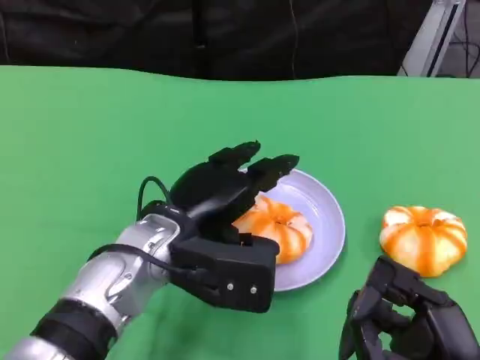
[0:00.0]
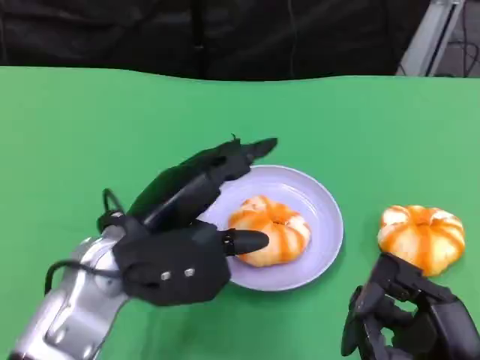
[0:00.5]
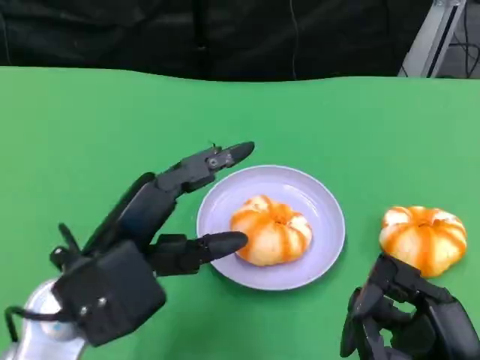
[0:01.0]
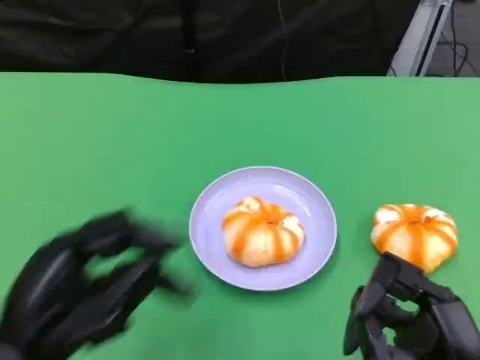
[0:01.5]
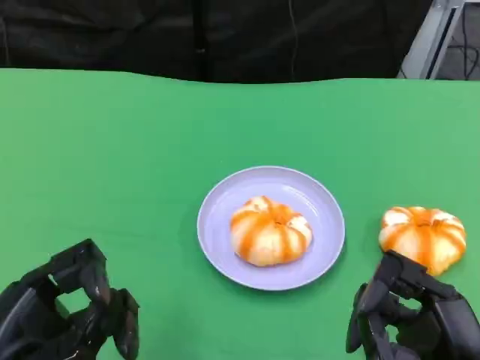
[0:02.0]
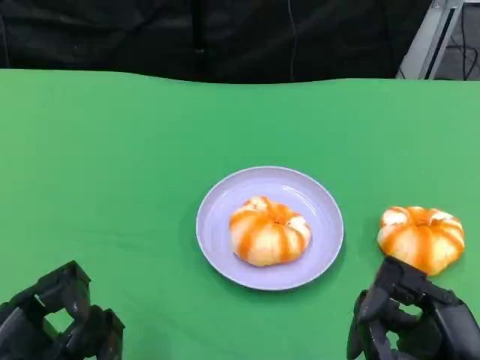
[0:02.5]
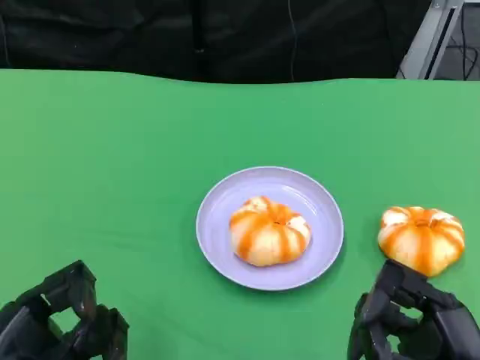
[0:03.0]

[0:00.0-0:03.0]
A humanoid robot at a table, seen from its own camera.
Task of the whole recording: Grasp the bread from the table and place it into the plate.
0:00.0 to 0:01.5: The left hand goes approximately 20 cm backward and to the left.
0:01.5 to 0:03.0: The hands move only a little.

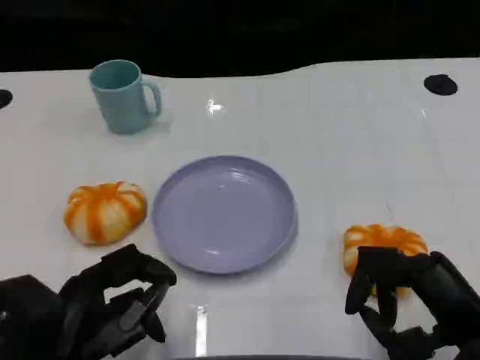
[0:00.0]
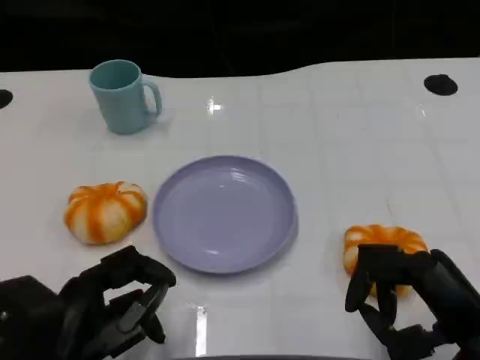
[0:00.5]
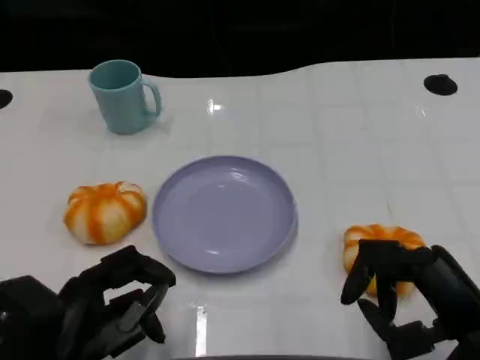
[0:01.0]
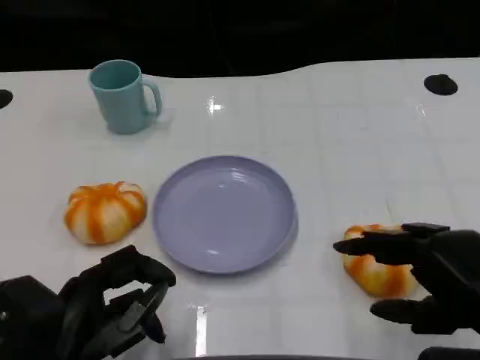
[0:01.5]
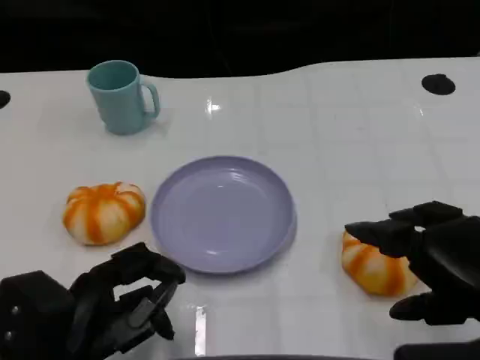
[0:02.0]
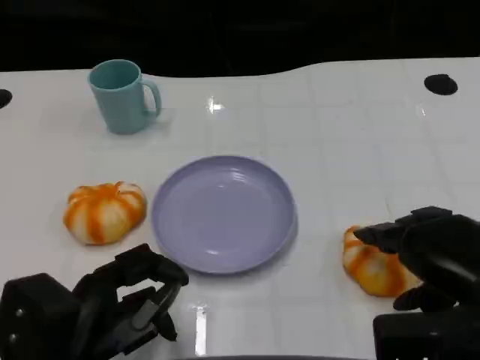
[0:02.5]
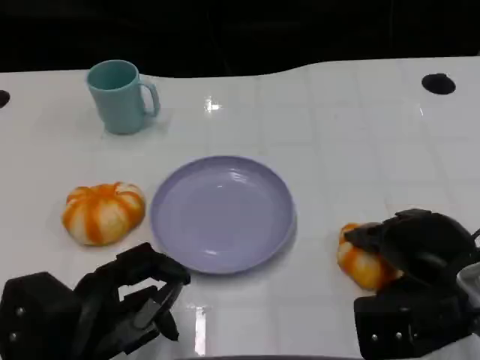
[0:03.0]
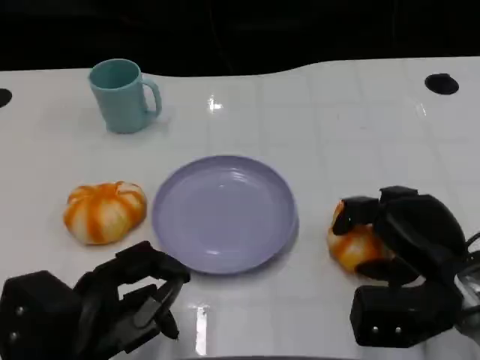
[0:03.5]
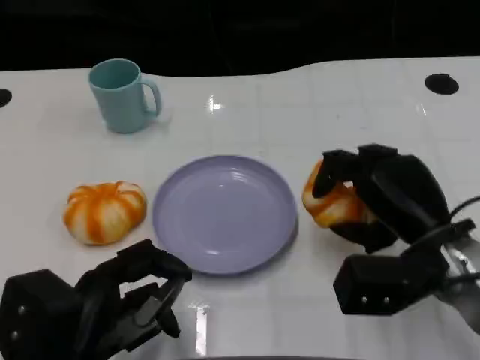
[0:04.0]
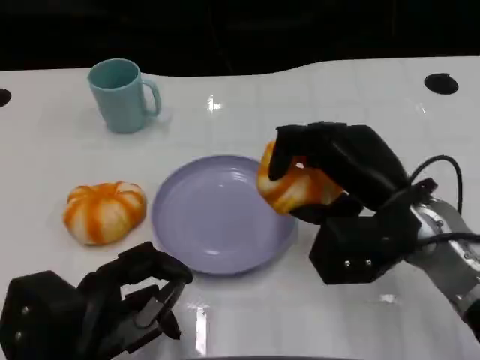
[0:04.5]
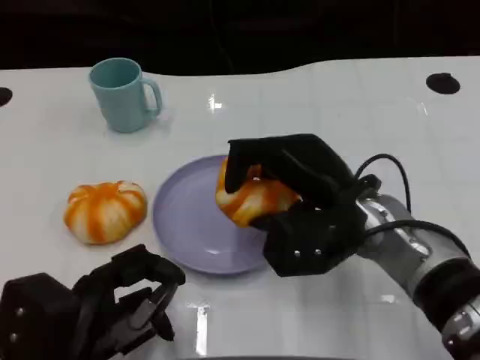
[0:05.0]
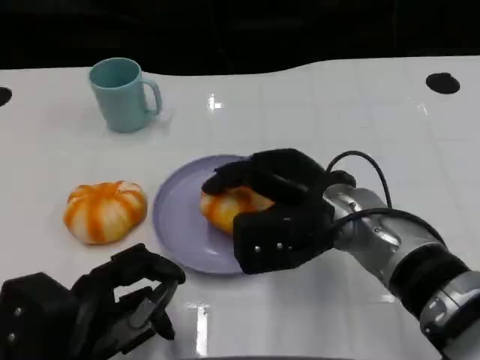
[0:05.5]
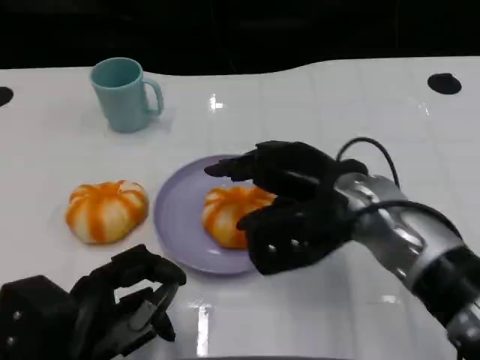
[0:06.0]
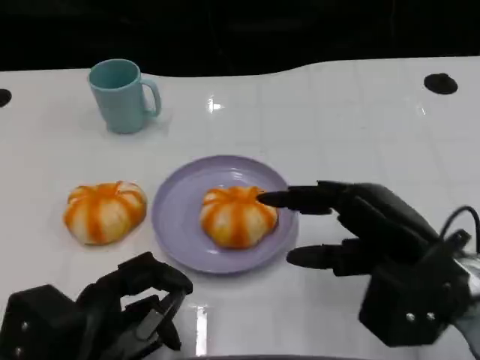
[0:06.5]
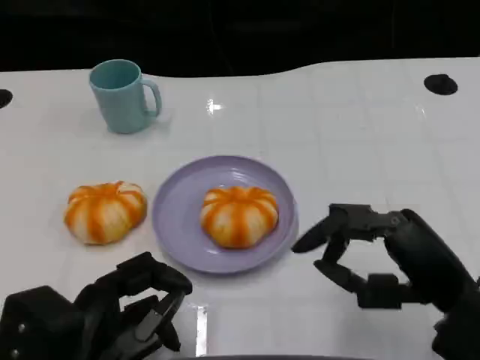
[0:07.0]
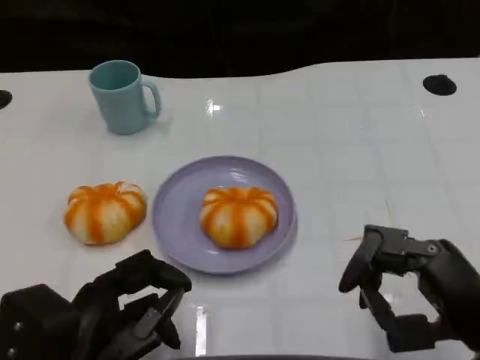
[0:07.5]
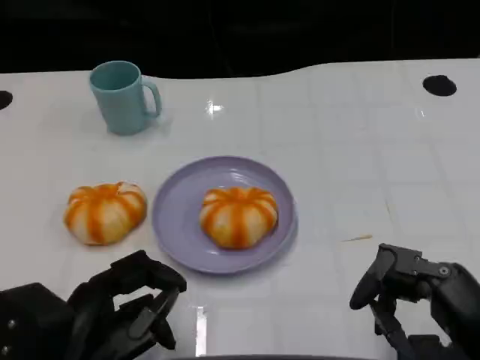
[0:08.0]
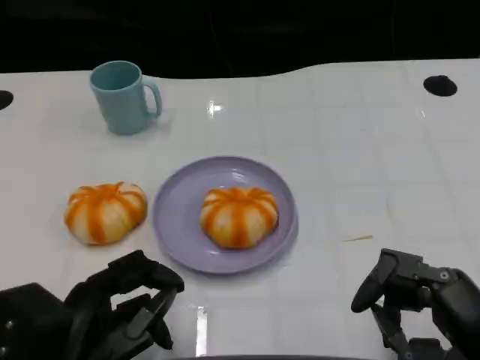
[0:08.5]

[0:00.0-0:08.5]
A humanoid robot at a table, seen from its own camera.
Task of the whole recording: Grasp the bread from the table and place it into the plate.
0:00.0 to 0:02.0: The right hand moves upward, roughly 5 cm.
0:02.0 to 0:04.0: The right hand goes about 10 cm forward and downward.
0:04.0 to 0:06.5: The right hand travels to the left and back again, about 10 cm each way.
0:06.5 to 0:08.5: The right hand goes about 10 cm backward.

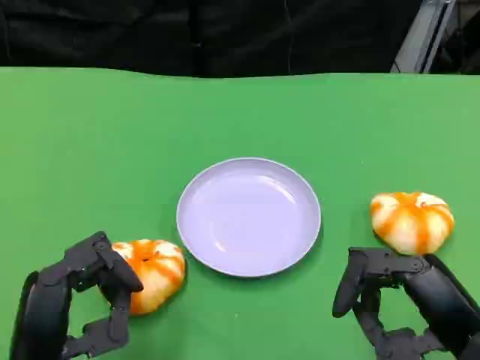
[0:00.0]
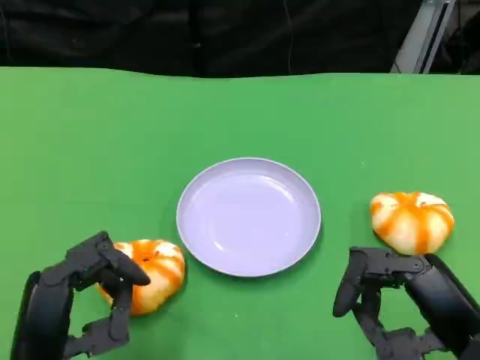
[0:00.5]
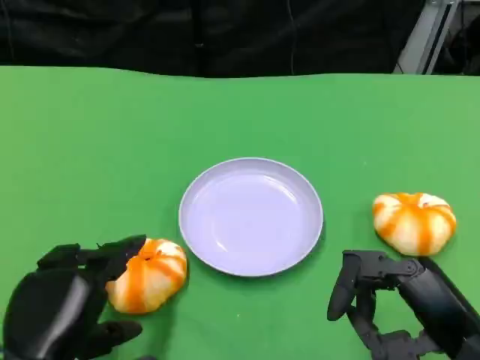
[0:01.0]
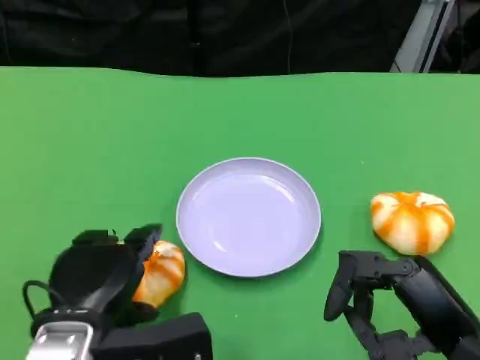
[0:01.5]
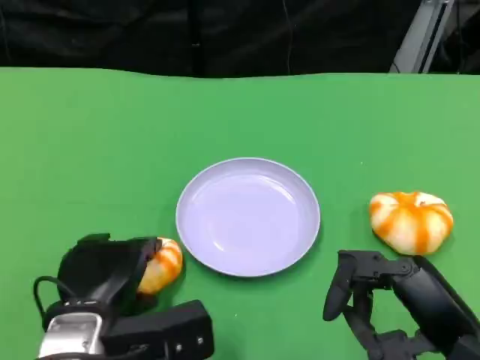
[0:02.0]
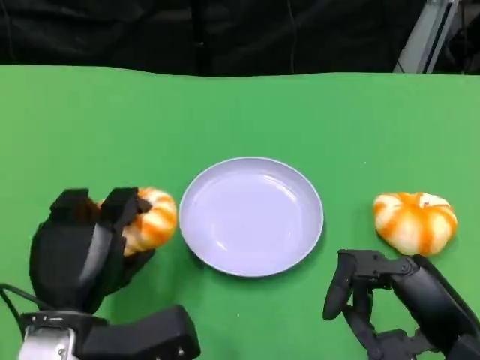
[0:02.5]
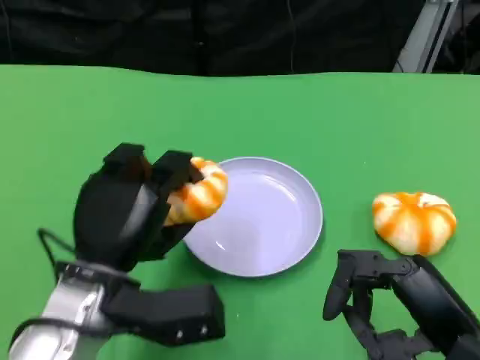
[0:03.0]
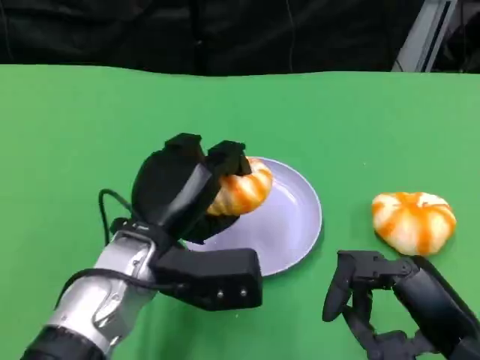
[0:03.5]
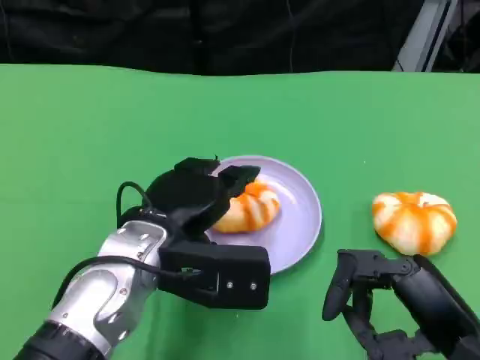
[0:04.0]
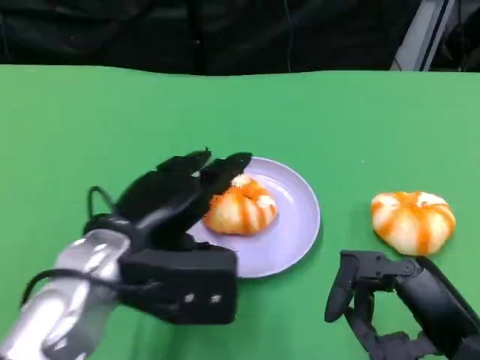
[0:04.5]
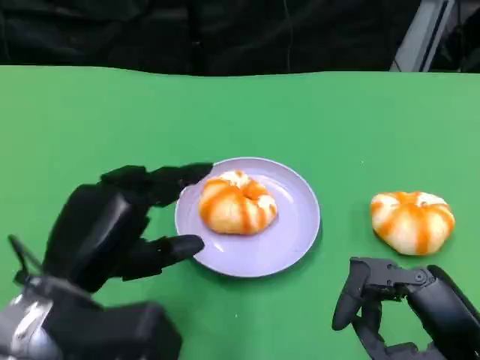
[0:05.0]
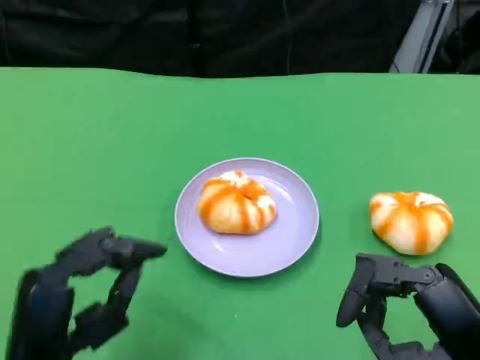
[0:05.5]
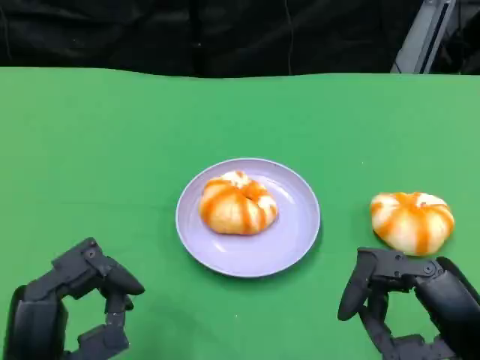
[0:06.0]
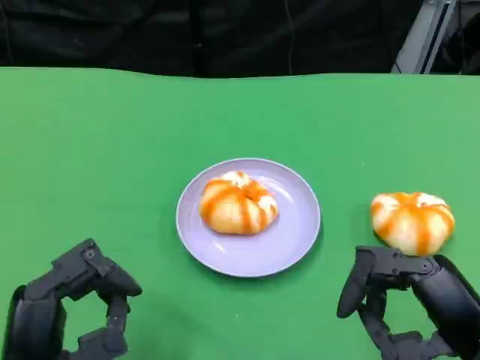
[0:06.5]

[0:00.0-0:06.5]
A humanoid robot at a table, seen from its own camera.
Task of the whole recording: Grasp the bread from the table and place it into the plate.
0:00.0 to 0:02.0: The left hand moves forward, roughly 5 cm.
0:02.0 to 0:04.5: The left hand goes some 10 cm upward.
0:04.5 to 0:06.5: The left hand goes some 15 cm backward, downward and to the left.

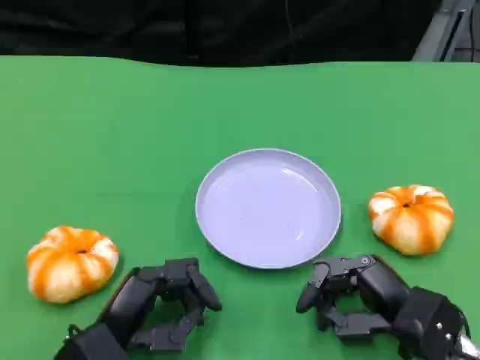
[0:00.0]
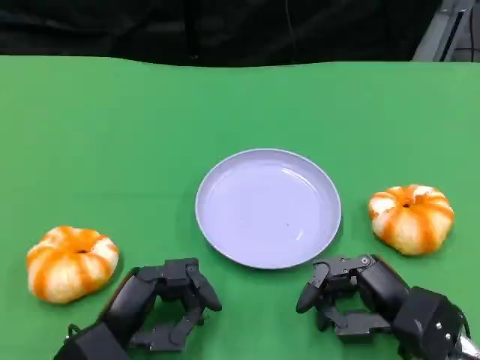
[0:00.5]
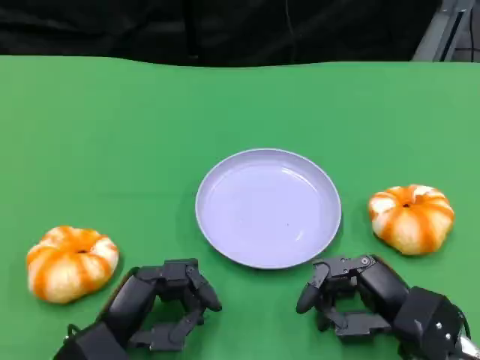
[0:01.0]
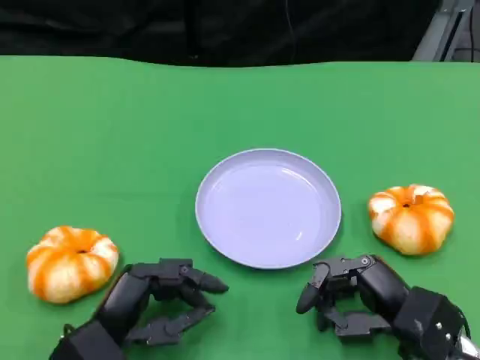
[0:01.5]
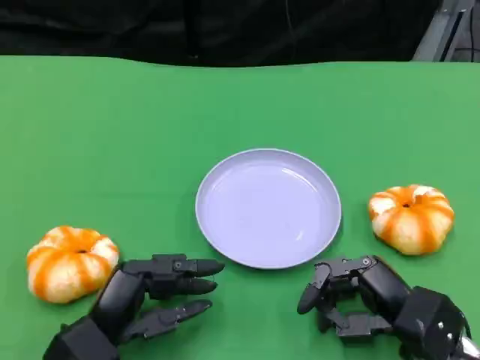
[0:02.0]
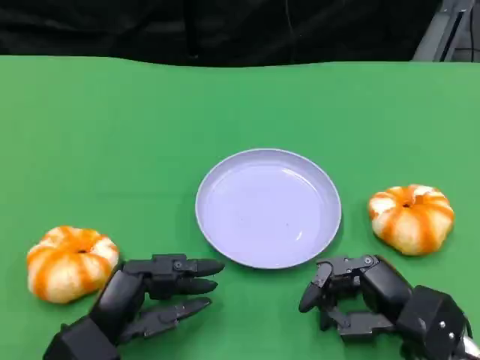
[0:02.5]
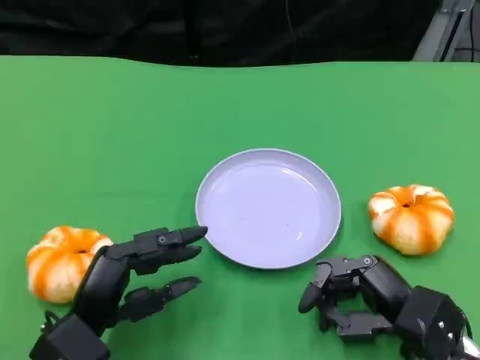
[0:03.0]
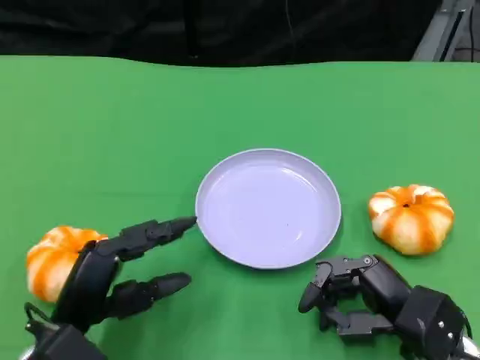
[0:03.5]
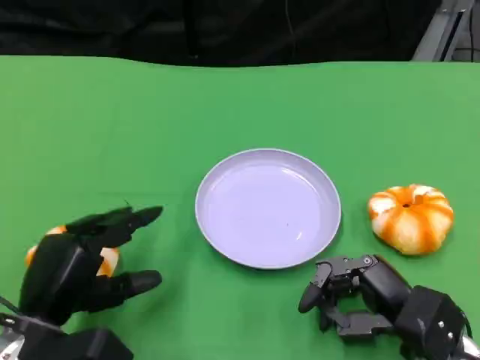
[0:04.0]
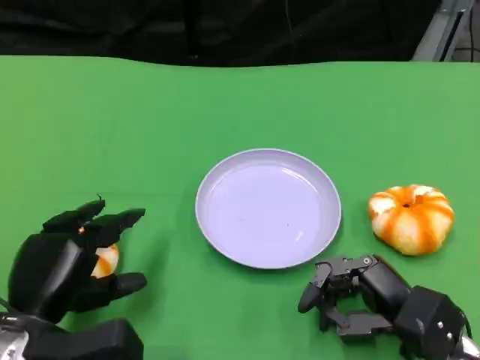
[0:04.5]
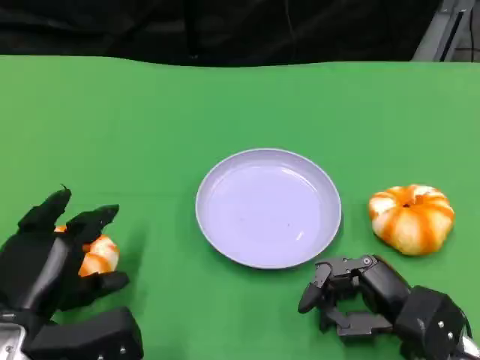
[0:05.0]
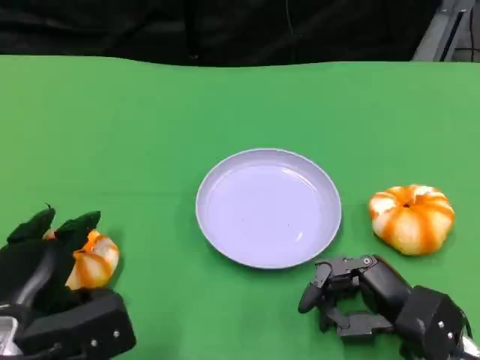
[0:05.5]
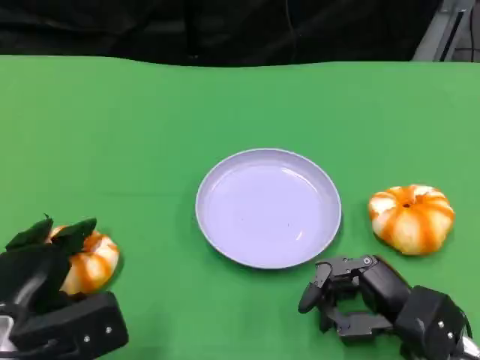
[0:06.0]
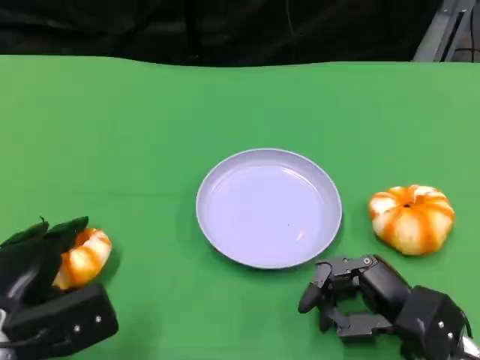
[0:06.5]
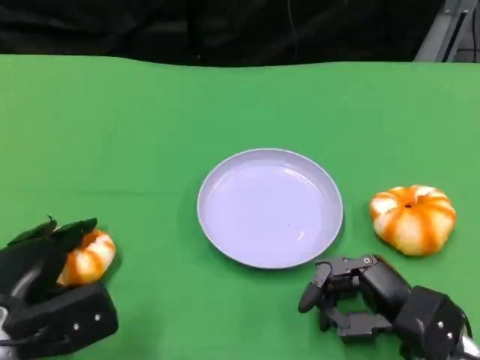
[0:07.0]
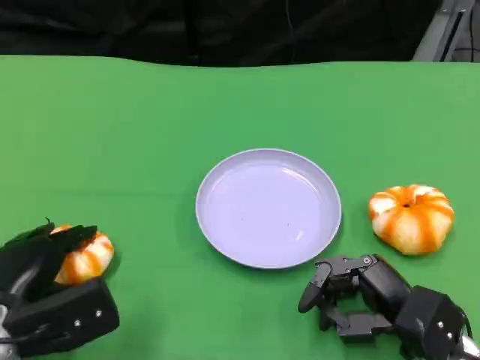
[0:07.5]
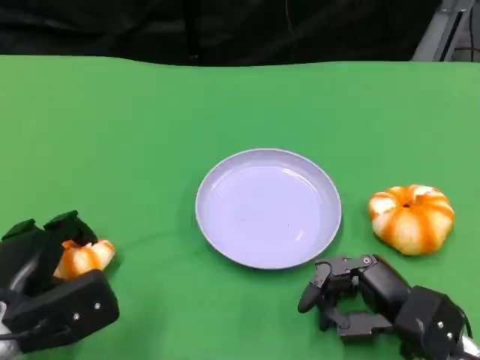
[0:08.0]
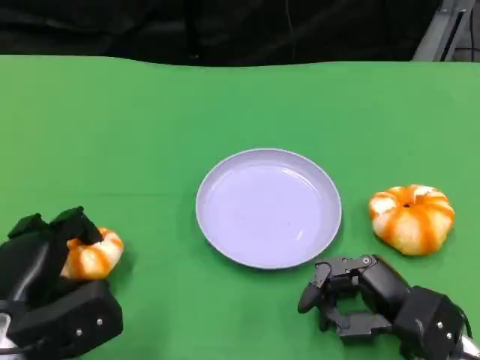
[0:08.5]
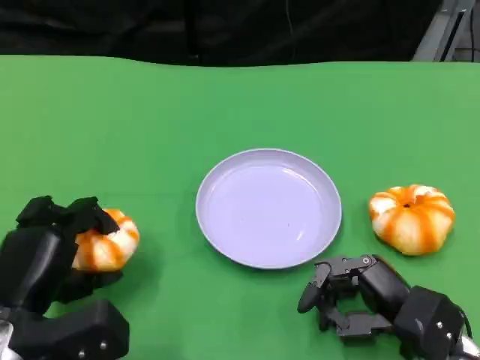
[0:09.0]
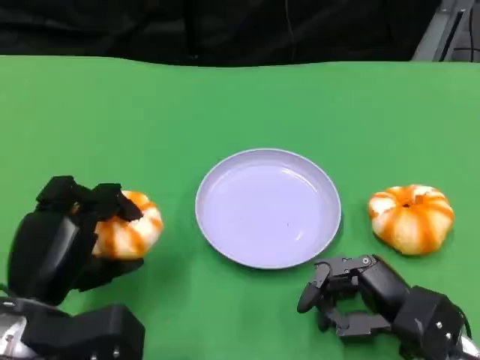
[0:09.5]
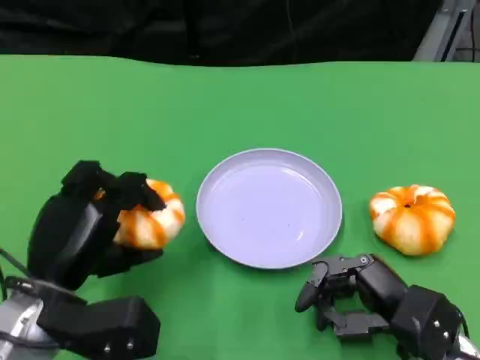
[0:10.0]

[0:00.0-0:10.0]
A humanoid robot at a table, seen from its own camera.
Task of the whole recording: Grasp the bread from the table and place it into the plate.
0:00.0 to 0:02.0: There are only small adjustments of the hands.
0:02.0 to 0:04.0: The left hand changes place by about 5 cm.
0:06.0 to 0:08.0: There are only small adjustments of the hands.
0:08.0 to 0:10.0: The left hand shifts by about 5 cm.
